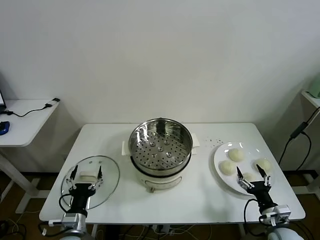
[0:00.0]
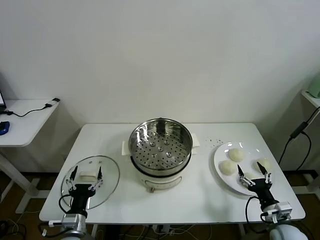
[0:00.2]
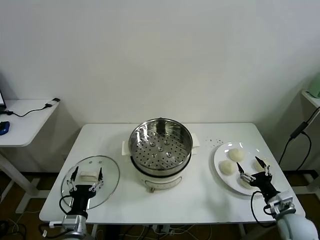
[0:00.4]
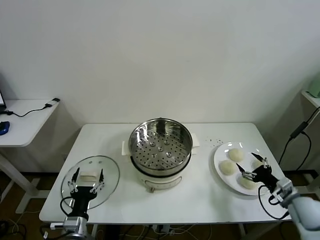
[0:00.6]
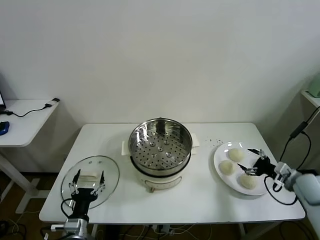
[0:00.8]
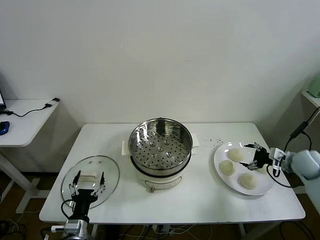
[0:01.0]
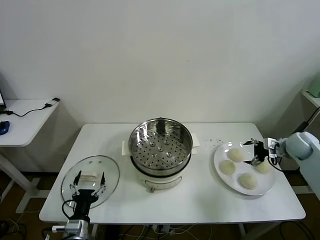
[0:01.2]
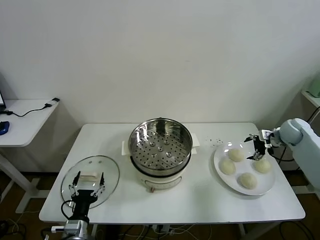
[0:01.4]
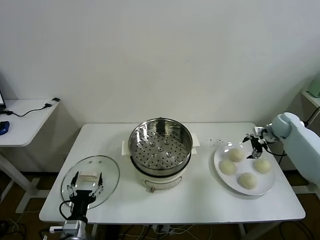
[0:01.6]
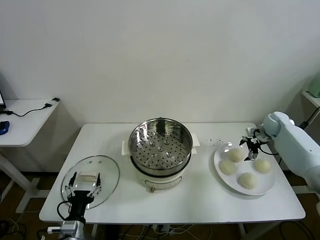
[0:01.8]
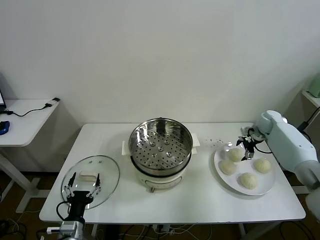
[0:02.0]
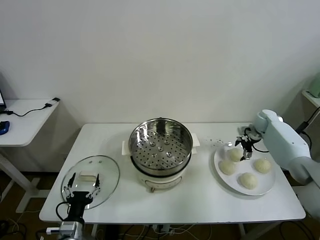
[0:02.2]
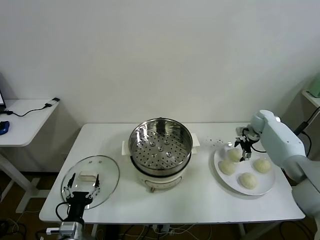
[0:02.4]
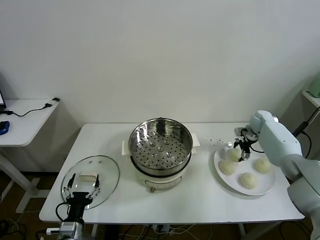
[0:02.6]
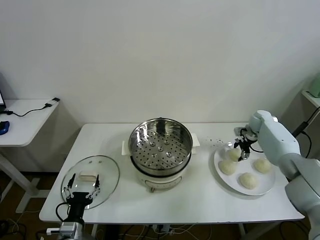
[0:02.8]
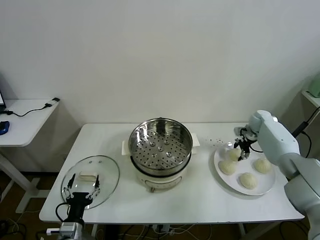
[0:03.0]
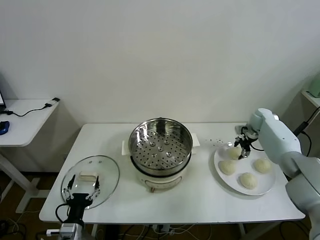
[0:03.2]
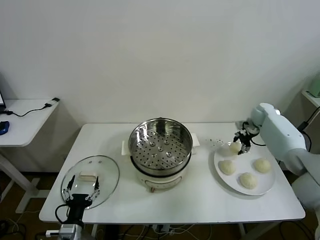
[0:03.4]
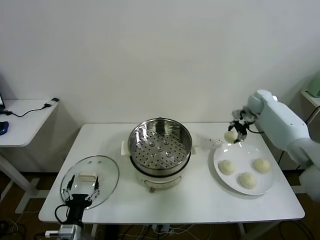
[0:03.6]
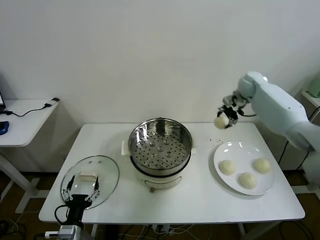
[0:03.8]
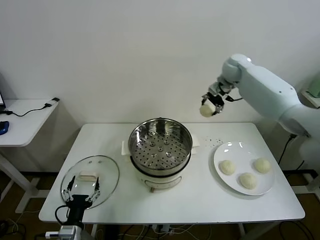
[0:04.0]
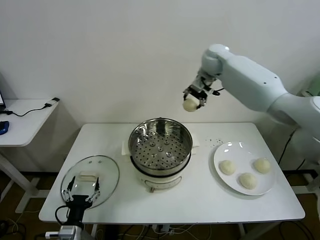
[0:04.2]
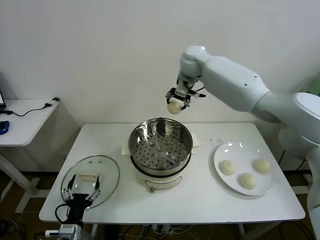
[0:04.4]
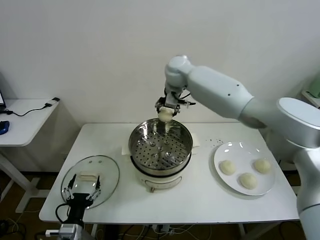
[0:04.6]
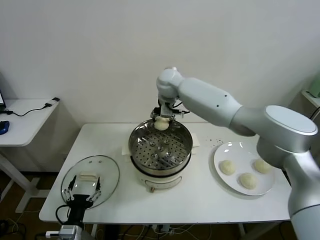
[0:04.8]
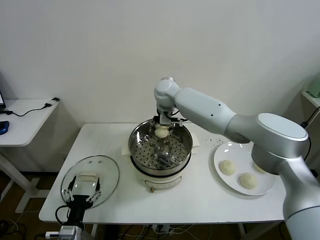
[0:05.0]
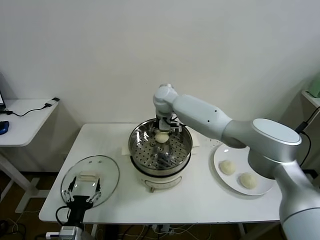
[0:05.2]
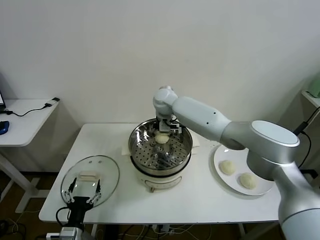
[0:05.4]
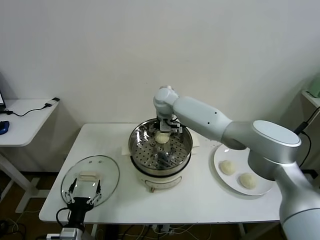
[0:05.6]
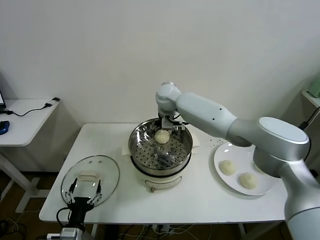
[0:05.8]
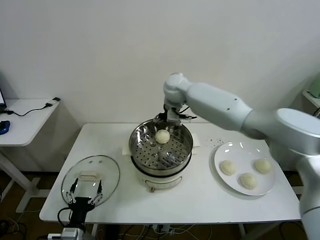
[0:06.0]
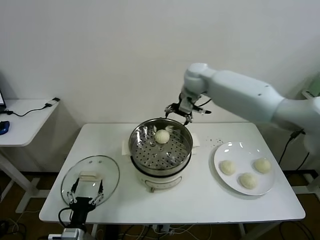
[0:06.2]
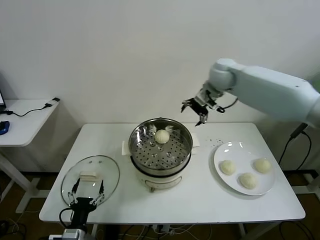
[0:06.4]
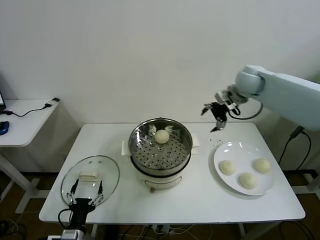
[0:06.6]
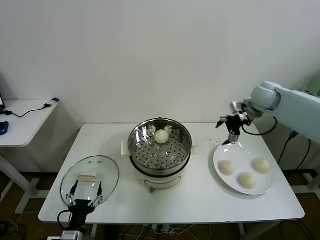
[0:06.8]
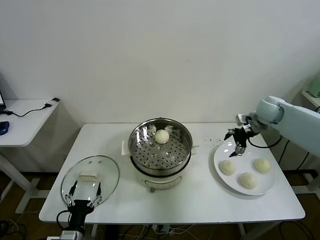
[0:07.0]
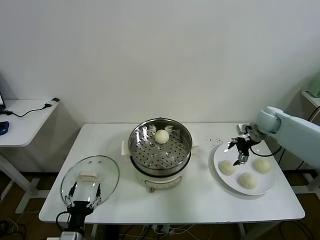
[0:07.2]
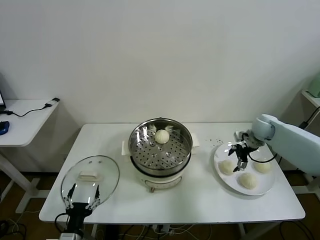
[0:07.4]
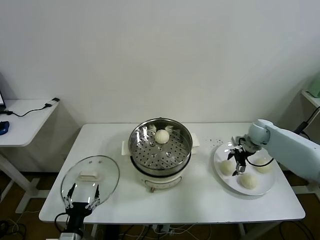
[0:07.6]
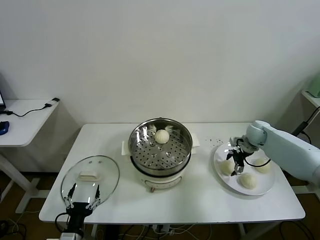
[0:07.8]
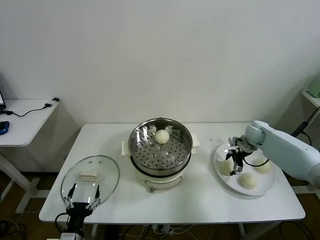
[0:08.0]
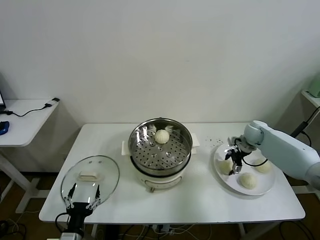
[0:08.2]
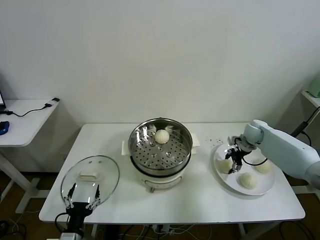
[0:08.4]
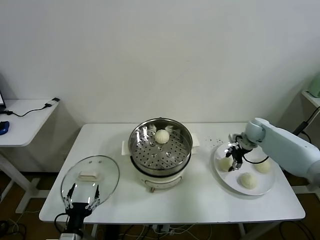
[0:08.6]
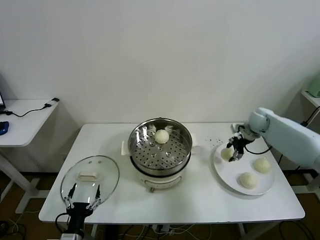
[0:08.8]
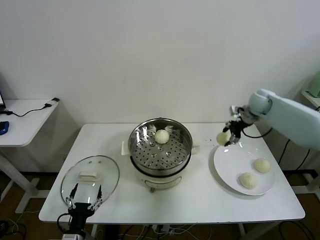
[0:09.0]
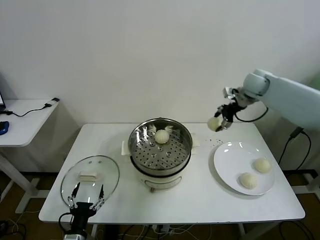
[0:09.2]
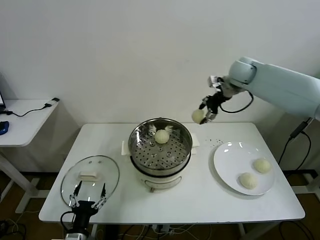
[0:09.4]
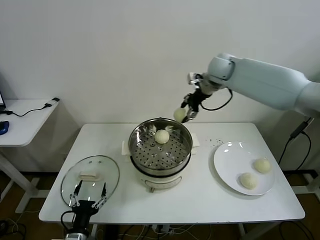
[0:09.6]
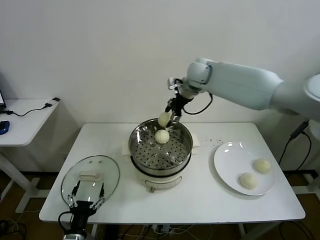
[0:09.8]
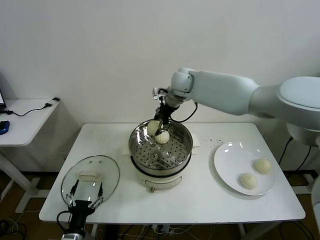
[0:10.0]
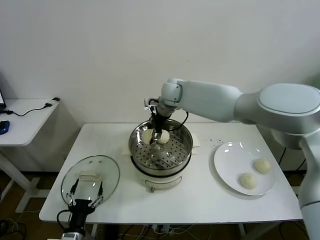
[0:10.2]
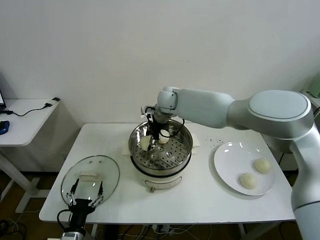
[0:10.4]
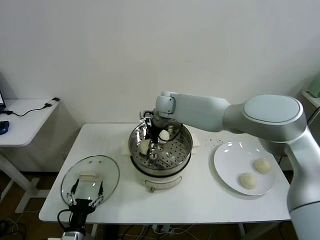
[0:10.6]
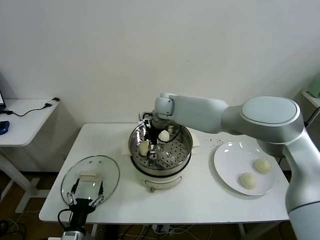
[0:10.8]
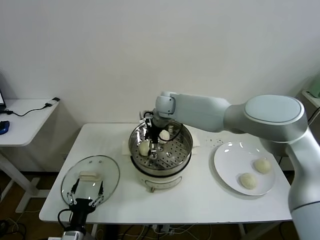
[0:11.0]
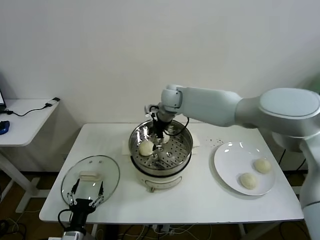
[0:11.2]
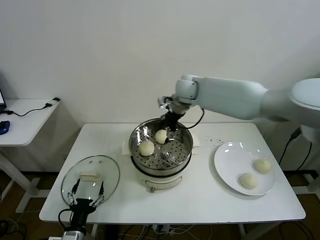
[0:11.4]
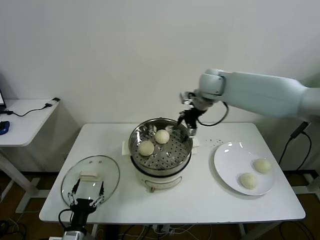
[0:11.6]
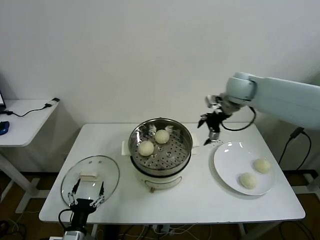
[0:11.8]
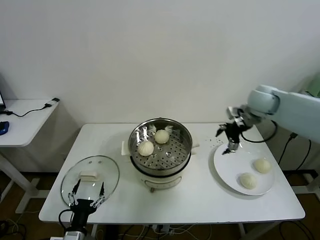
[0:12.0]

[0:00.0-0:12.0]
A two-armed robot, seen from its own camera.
Task of the whole recording: take steamed baozi put them in steamer then cover it.
Step, 0.0 to 3.0 s: Grasp the baozi in the plate with right gripper.
Step, 3.2 to 5.6 s: Place the baozi on the steamer with right gripper.
Step, 5.8 to 8.4 s: Grasp the baozi in the plate with right gripper.
Step, 8.6 to 11.0 s: Place the baozi on the steamer with right gripper.
1.6 to 3.0 s: The right gripper changes place by roughly 5 cm, and closes.
3.0 to 4.4 s: The right gripper heads to the left and upward, covering roughly 40 cm.
4.4 to 6.0 s: The right gripper reaches roughly 10 cm downward, then returns, and opens its fingers.
6.0 to 7.6 s: The right gripper heads to the right and downward, covering some 35 cm.
7.6 to 9.0 s: The right gripper goes about 15 cm upward, and closes.
9.0 to 10.4 s: The right gripper goes about 35 cm to the left.
10.4 to 12.0 s: The right gripper is displaced to the right by some 35 cm, and opens its fingers.

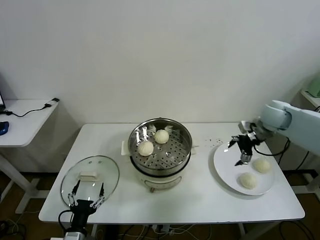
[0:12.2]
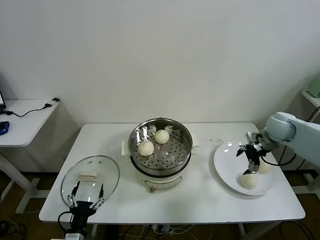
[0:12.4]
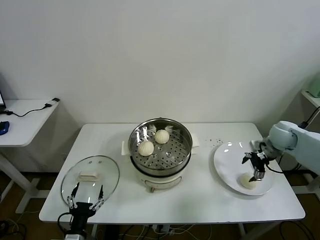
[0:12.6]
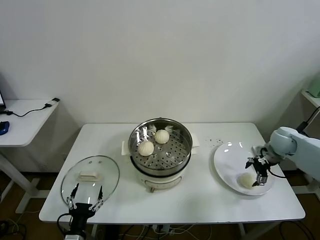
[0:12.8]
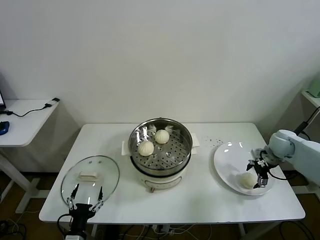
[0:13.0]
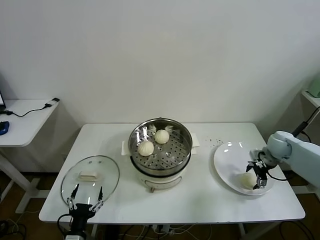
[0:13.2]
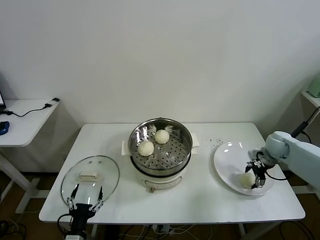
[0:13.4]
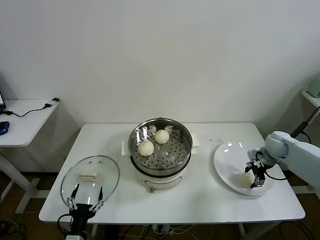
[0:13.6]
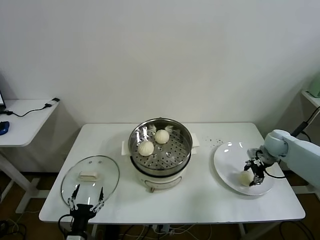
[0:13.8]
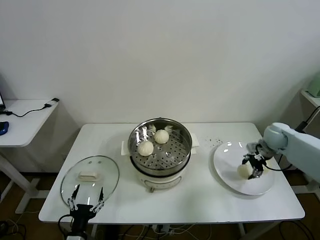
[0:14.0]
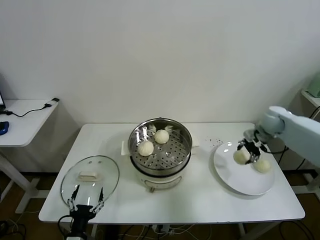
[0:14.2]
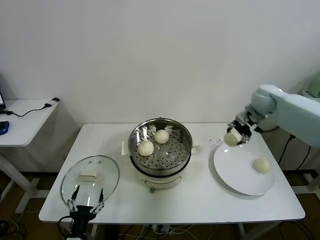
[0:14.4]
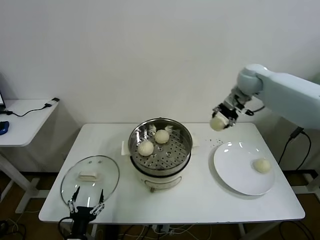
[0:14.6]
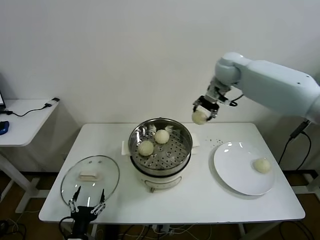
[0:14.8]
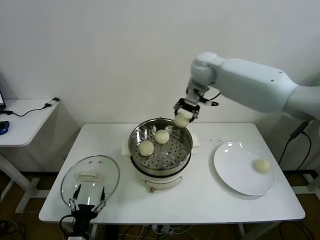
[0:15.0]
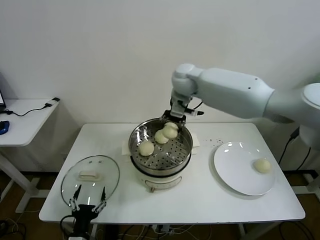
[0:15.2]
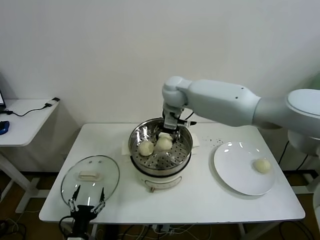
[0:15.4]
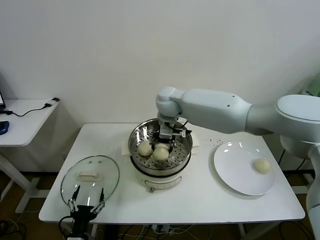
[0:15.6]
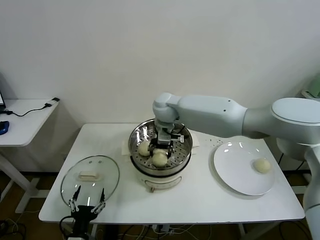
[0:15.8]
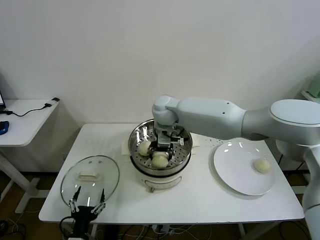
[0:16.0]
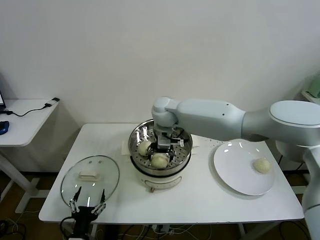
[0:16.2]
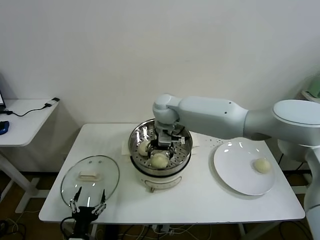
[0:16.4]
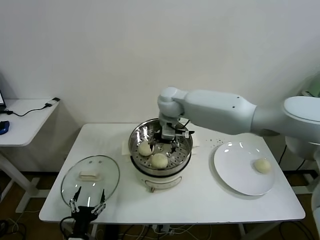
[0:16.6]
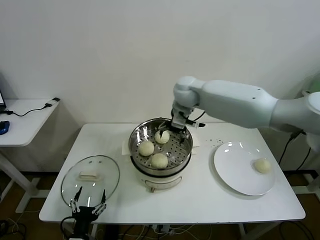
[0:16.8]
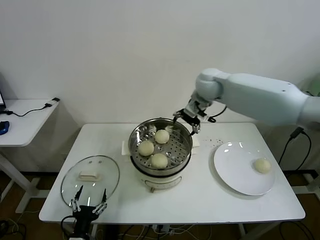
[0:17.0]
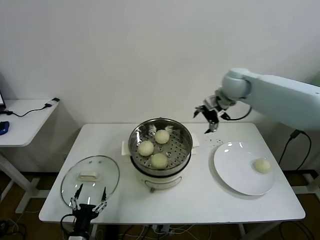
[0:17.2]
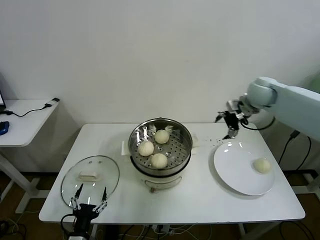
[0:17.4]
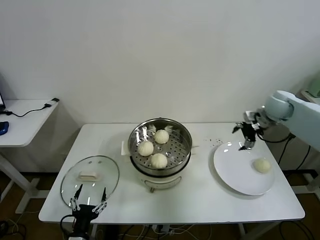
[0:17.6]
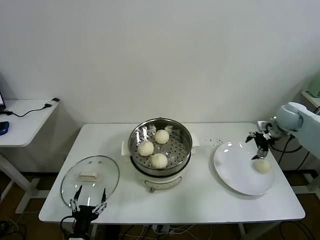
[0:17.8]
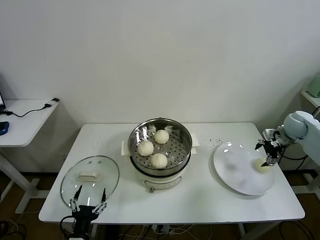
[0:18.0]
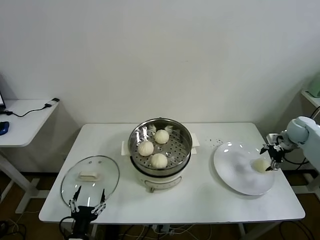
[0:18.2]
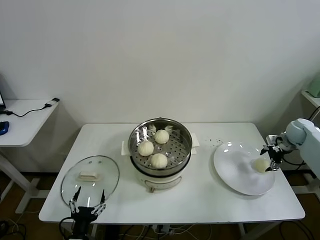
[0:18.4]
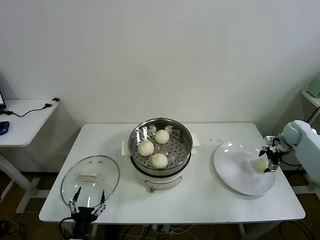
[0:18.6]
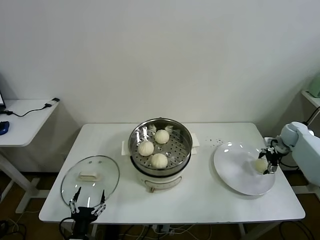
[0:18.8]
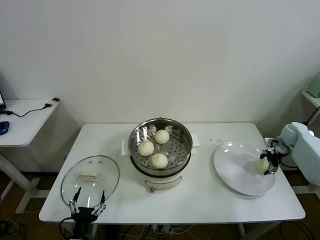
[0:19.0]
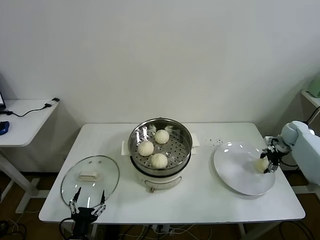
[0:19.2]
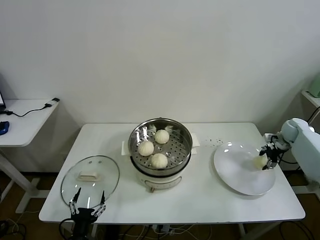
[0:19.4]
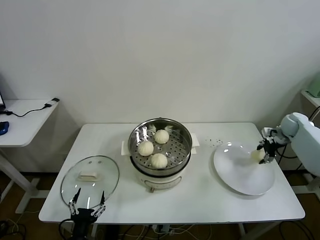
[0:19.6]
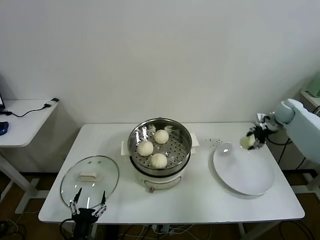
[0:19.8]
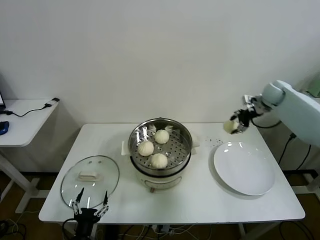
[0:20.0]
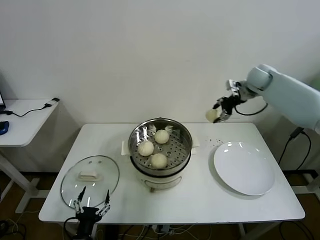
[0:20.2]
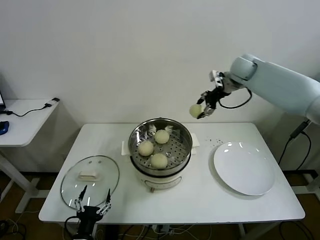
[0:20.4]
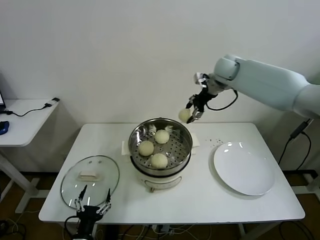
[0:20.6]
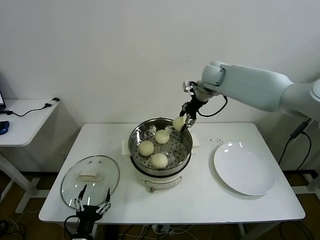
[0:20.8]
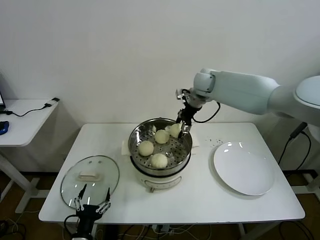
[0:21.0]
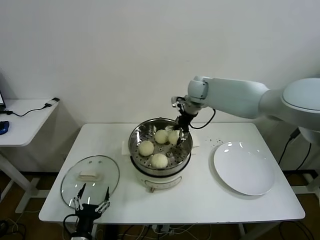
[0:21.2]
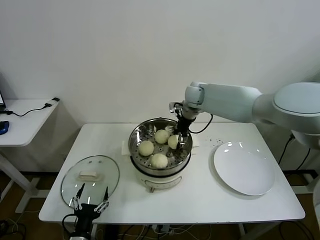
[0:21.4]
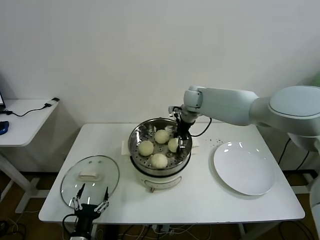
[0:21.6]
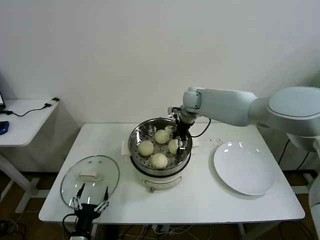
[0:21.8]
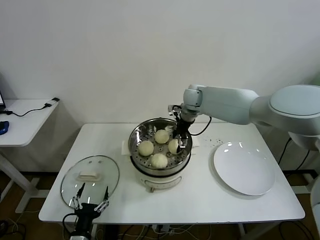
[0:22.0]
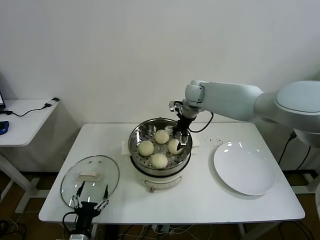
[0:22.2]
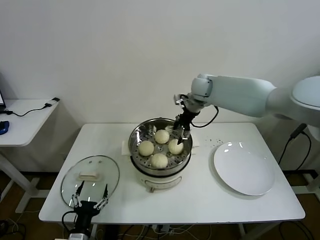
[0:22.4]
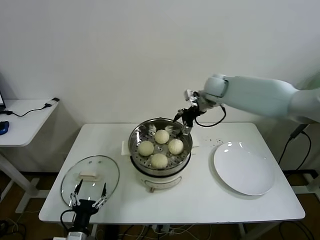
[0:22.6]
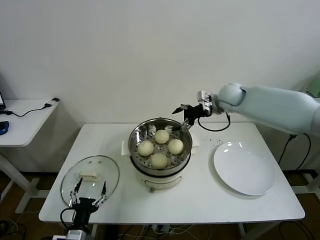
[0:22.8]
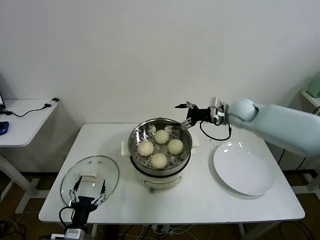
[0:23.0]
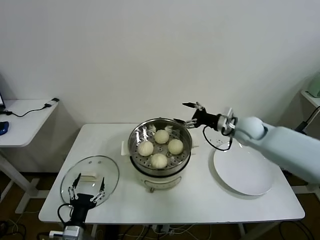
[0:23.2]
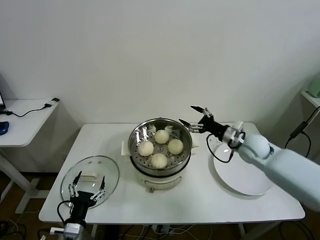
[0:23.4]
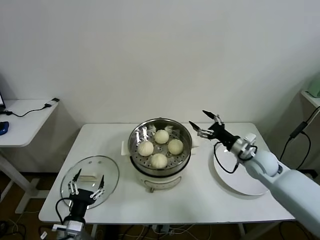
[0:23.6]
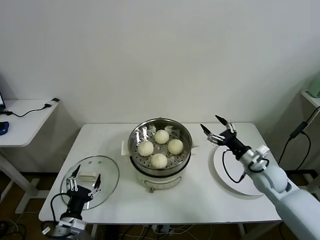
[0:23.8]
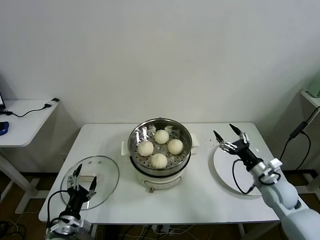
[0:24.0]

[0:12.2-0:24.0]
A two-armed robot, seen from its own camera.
Task of the whole recording: take steamed baozi put them in steamer then cover it.
Step, 12.2 to 13.6 s: Grasp the baozi in the plate with right gripper.
Step, 13.8 to 16.2 s: Place the baozi on the steamer with right gripper.
Step, 16.6 to 19.0 s: Grasp the baozi in the plate with right gripper.
Step, 19.4 to 22.0 s: Place the baozi on the steamer with right gripper.
12.2 to 13.6 s: The right gripper is displaced downward and to the right by some 15 cm, and closes up.
13.6 to 15.2 s: The right gripper heads to the left and upward, covering some 40 cm.
15.2 to 16.6 s: The right gripper opens its fingers.
16.6 to 18.2 s: The right gripper goes about 50 cm to the right.
18.2 to 19.6 s: The right gripper closes.
19.6 to 21.0 s: The right gripper shifts some 40 cm to the left and upward.
21.0 to 22.6 s: The right gripper moves some 5 cm, and opens up.
22.6 to 24.0 s: The right gripper shifts roughly 40 cm backward, downward and to the right, while the left gripper moves about 5 cm.
